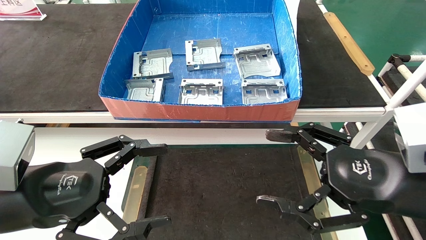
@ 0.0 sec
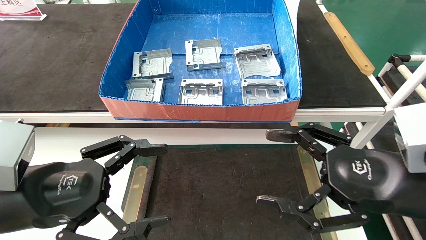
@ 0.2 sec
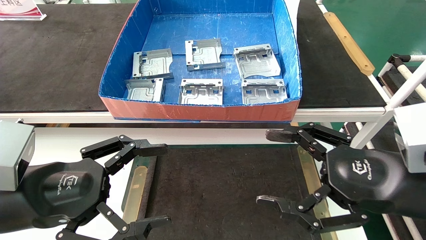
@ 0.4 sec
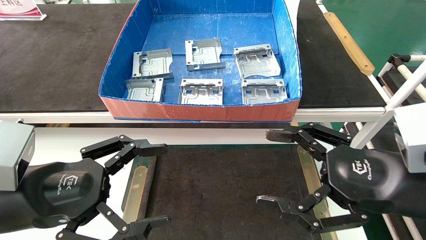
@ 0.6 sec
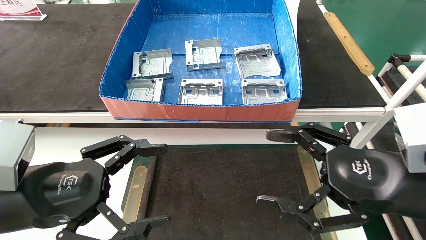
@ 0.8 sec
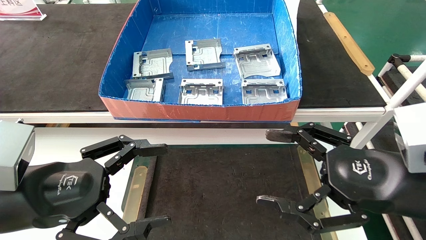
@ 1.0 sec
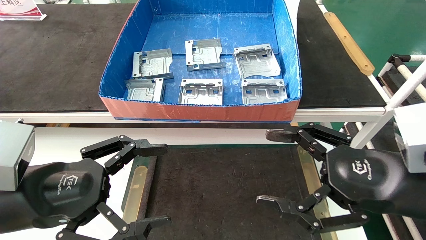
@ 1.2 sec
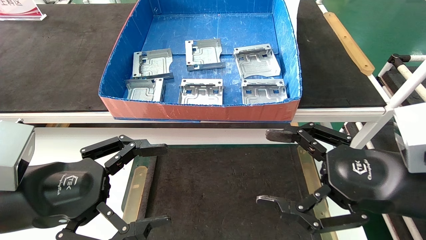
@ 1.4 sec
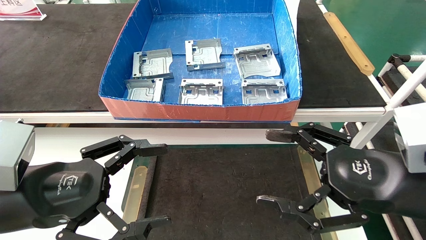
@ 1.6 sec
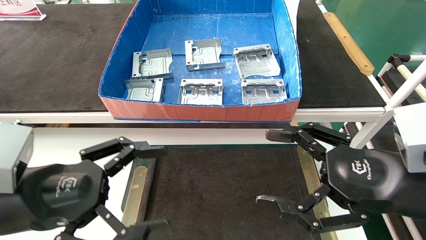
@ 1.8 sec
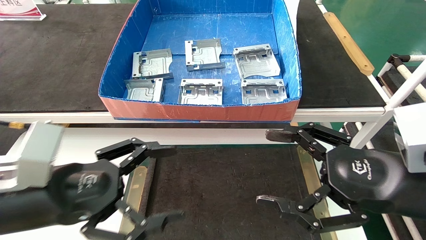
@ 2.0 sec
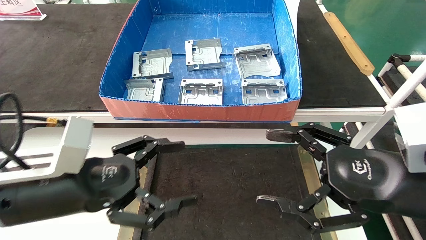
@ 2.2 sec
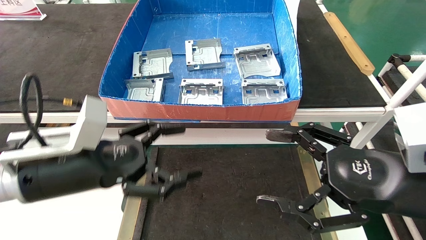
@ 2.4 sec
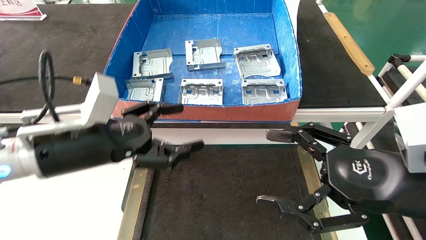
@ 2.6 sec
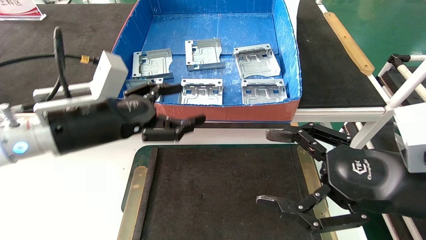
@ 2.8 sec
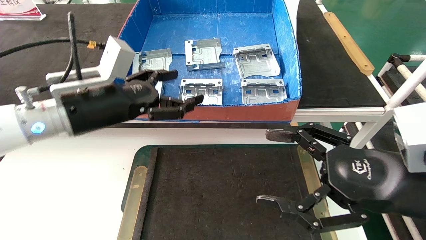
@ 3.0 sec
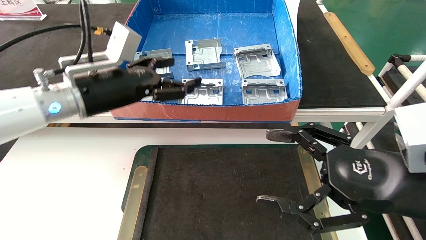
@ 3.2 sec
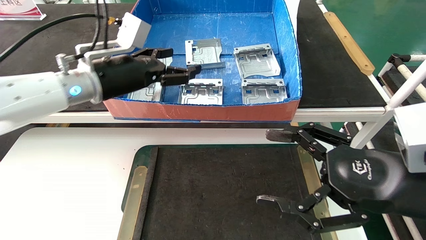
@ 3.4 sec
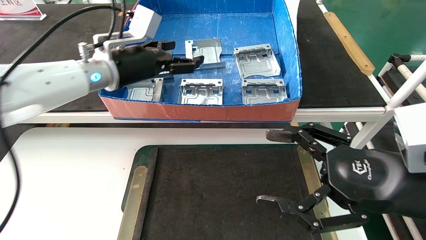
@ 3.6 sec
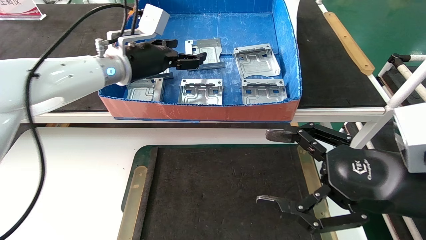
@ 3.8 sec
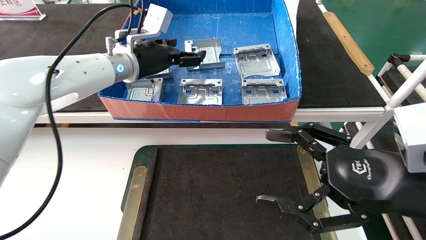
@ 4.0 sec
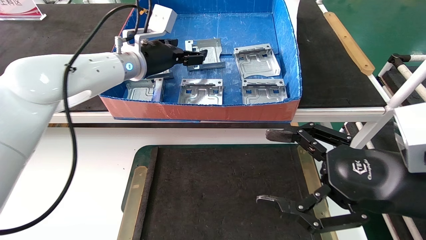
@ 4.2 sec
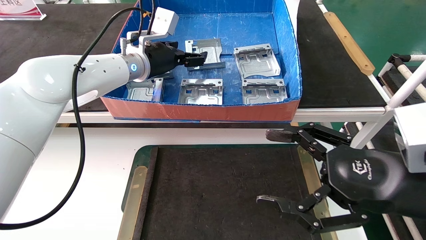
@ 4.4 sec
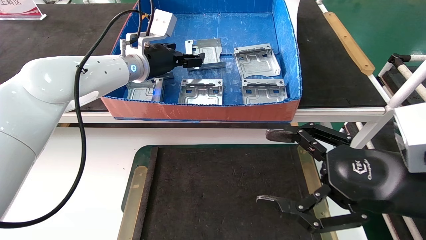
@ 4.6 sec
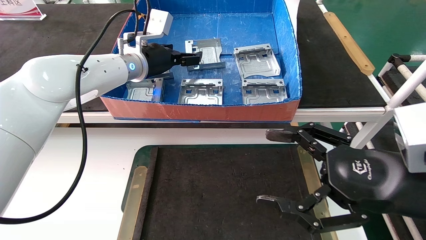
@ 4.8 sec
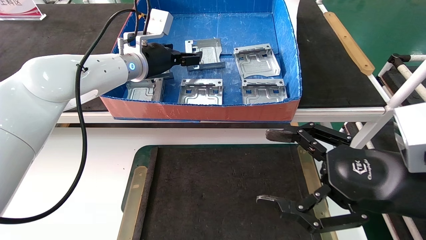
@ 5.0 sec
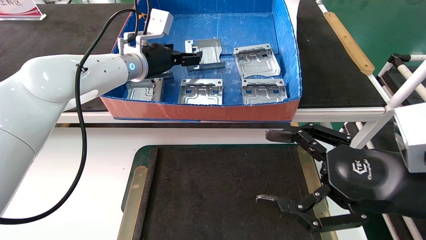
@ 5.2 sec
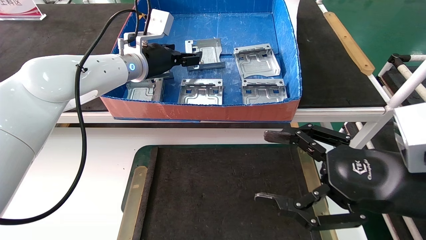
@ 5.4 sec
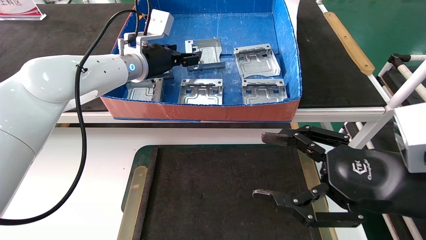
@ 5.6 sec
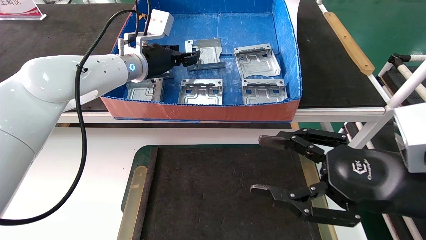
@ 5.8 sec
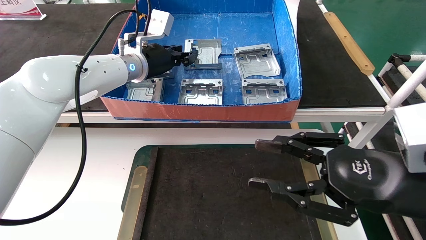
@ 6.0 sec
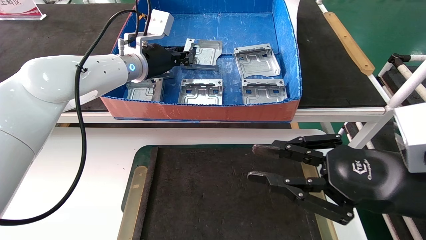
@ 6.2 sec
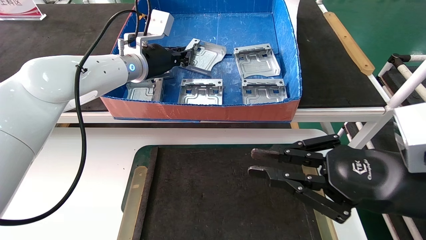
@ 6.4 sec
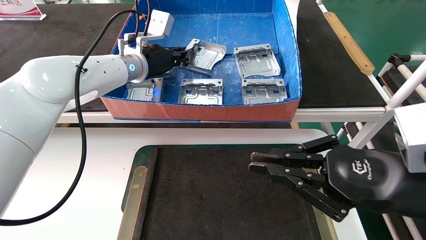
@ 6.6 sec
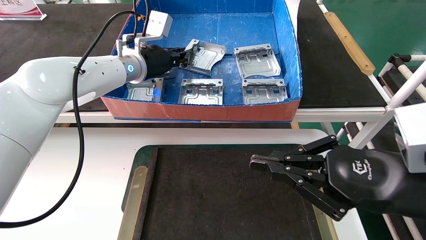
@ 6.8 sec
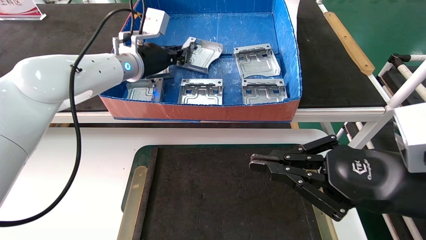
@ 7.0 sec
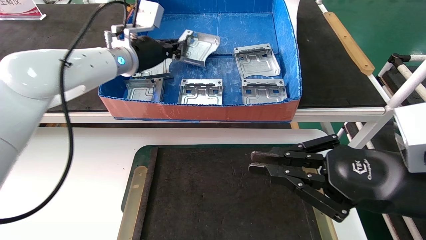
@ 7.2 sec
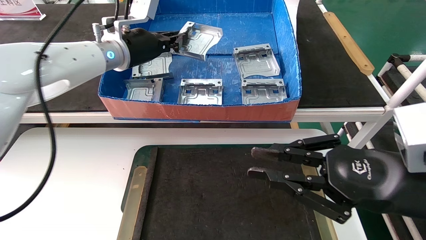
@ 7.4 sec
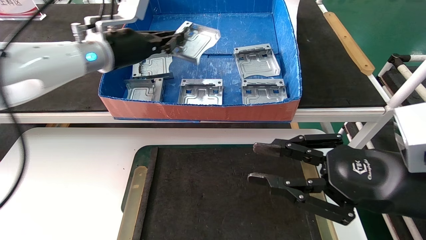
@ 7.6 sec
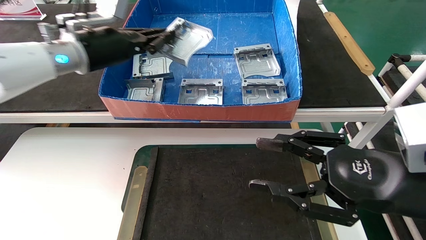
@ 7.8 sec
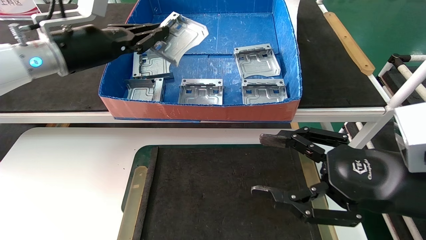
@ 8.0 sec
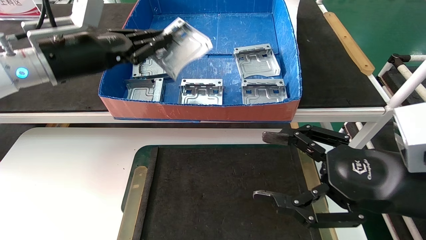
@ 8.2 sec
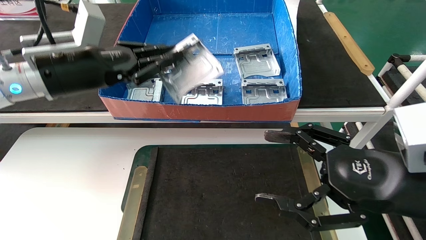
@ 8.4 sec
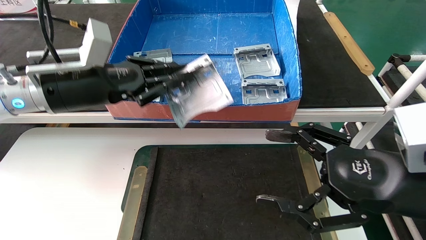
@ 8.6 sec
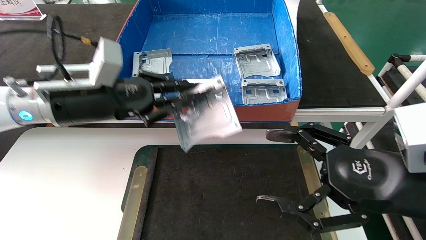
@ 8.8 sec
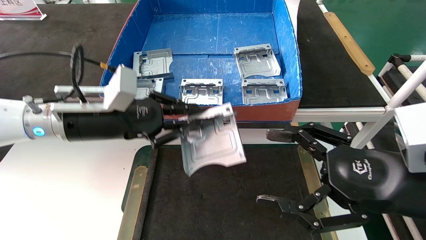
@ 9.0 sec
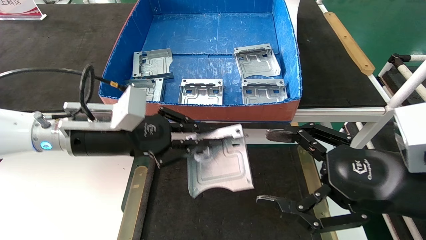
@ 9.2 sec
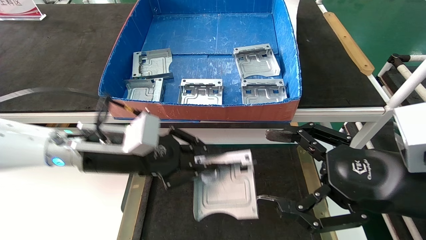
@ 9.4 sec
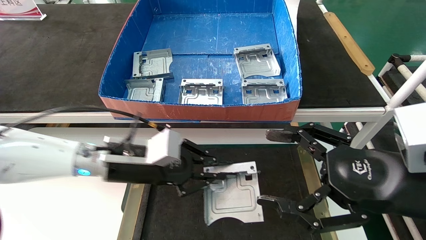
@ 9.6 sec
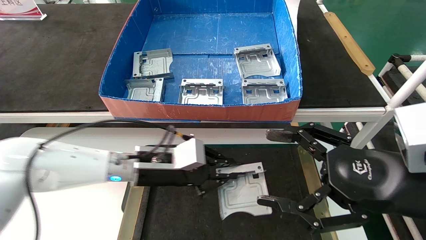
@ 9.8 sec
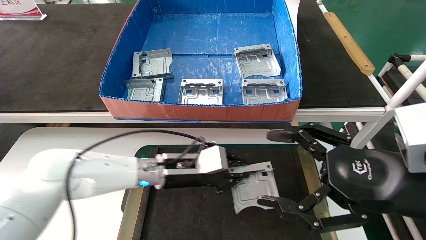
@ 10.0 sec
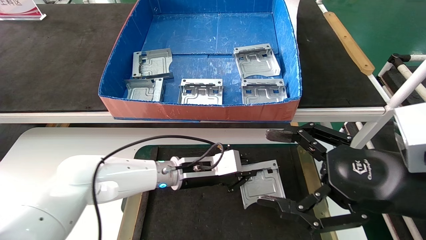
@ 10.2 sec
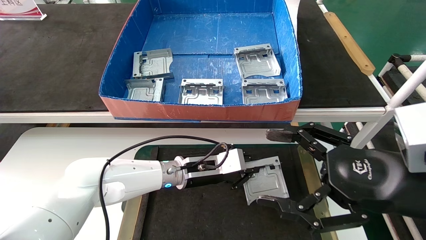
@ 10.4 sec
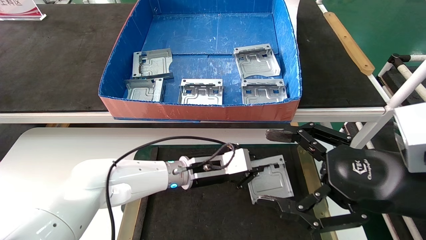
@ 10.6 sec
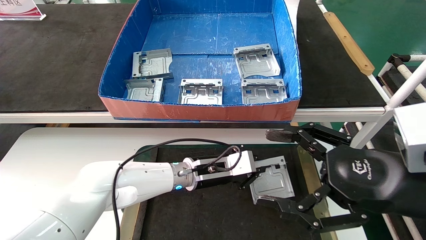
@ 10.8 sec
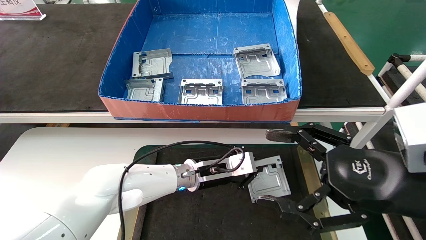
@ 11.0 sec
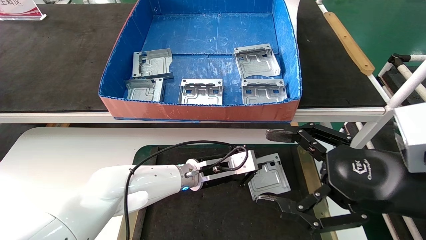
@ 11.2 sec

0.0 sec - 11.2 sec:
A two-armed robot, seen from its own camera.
Task of the whole recording: take the accessories out of the box and place them on the table.
Step, 2.2 sec - 6.4 sec: Pick up the hard drive bracket from the feeding area.
0.0 sec - 1.6 sec: Neither gripper changes place.
1.6 sec - 3.2 sec: The left gripper moves forward and upward, some 20 cm.
3.2 sec - 4.8 sec: The left gripper heads forward and to the right, covering some 15 cm.
4.8 sec - 6.4 sec: The left gripper closes its fingers. The right gripper closes up.
6.4 sec - 8.0 sec: The right gripper opens, while the left gripper is displaced to the left and backward by about 15 cm.
8.0 sec - 9.6 sec: The right gripper opens its fingers, while the left gripper heads downward and to the right, covering approximately 20 cm.
9.6 sec - 11.2 sec: The left gripper goes about 20 cm to the right, downward and forward.

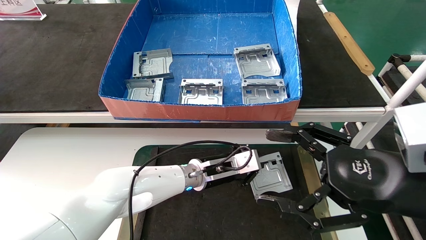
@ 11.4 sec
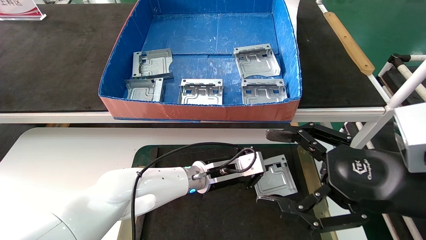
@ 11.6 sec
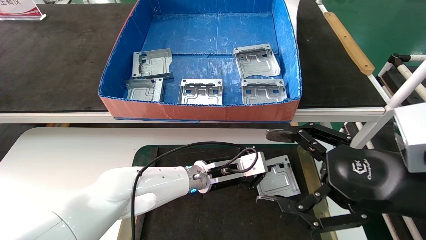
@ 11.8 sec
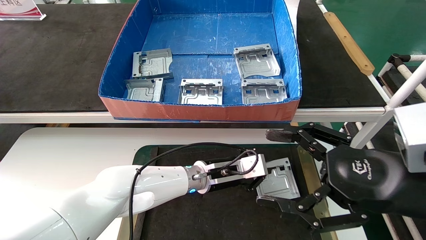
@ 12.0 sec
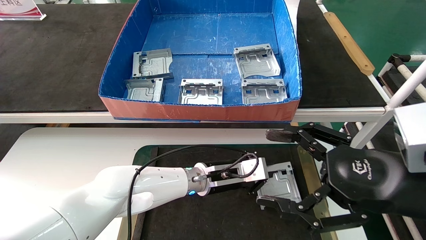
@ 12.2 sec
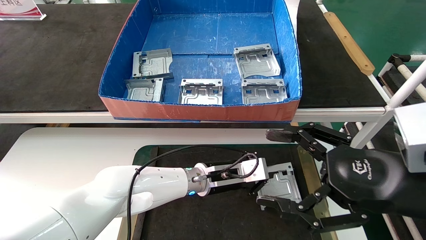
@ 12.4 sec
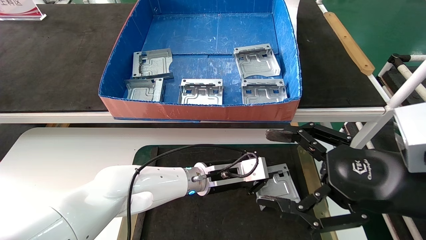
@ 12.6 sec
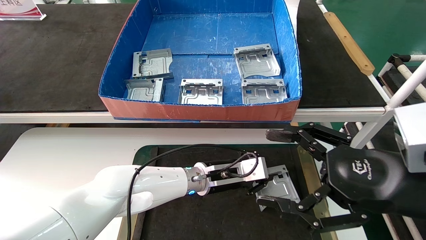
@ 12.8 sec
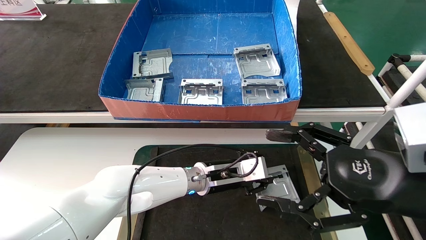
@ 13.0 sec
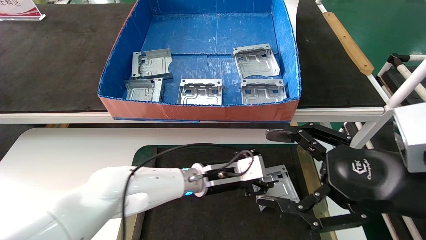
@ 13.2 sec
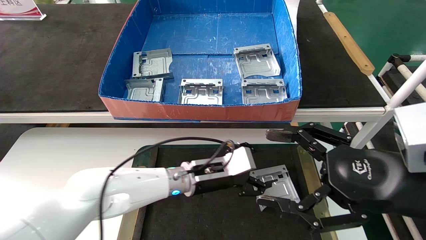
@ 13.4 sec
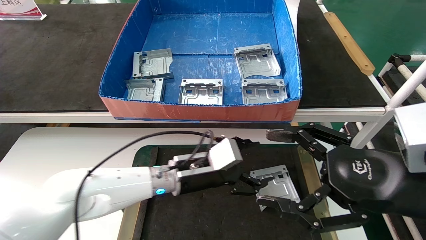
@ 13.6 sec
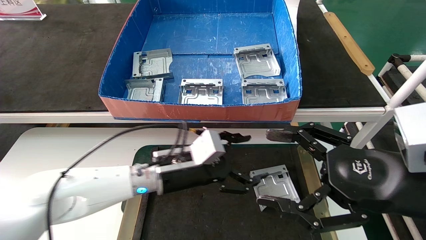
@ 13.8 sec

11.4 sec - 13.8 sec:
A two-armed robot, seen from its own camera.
Task of the whole recording: take the accessories out of the box and place them on the table.
11.4 sec - 12.6 sec: The grippers make only small movements.
12.6 sec - 13.8 sec: The left gripper moves to the left, about 10 cm, and opens up.
